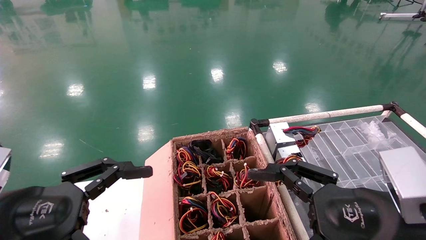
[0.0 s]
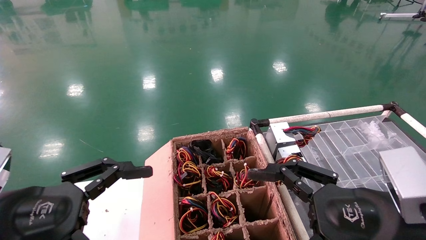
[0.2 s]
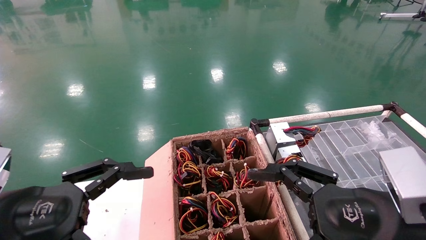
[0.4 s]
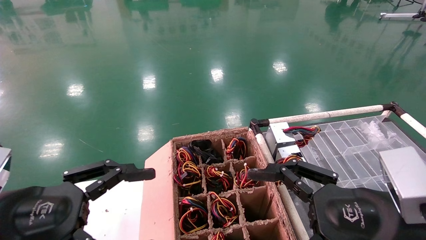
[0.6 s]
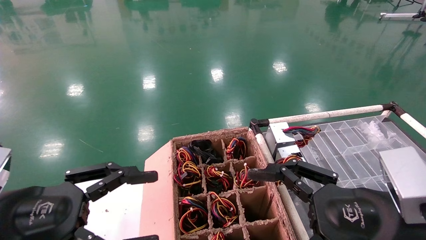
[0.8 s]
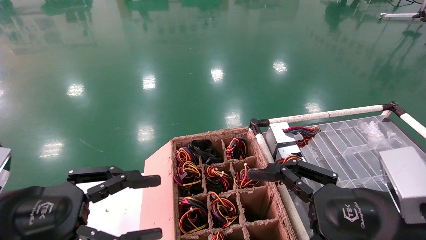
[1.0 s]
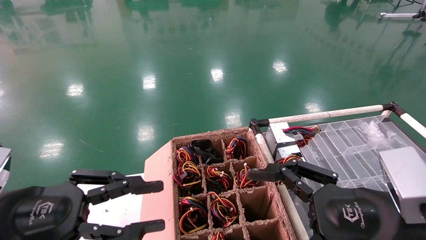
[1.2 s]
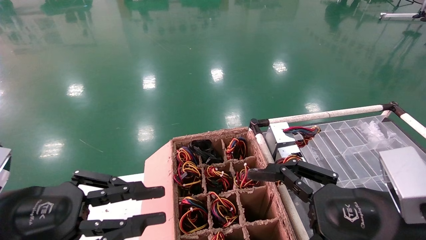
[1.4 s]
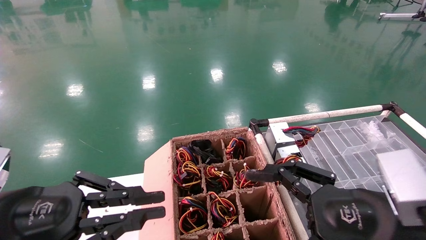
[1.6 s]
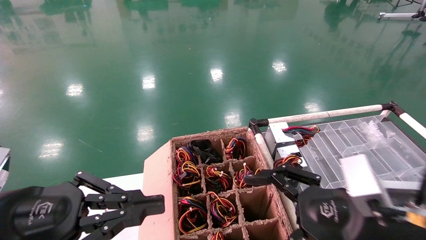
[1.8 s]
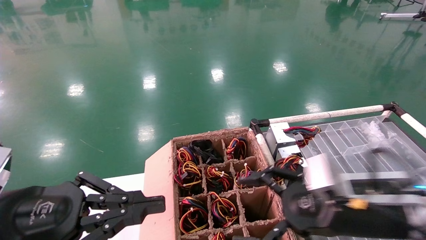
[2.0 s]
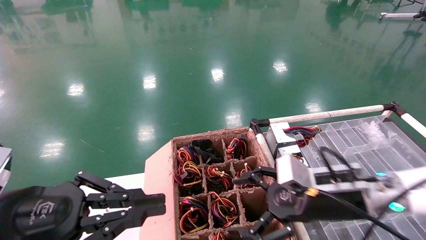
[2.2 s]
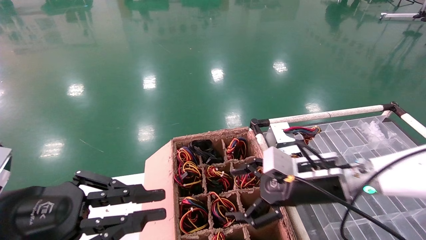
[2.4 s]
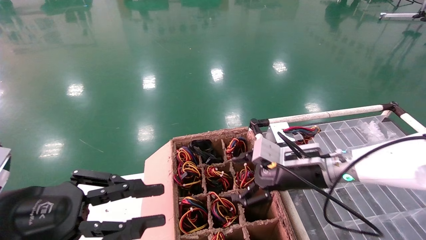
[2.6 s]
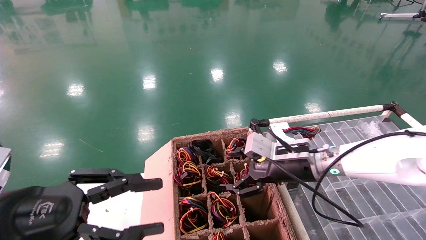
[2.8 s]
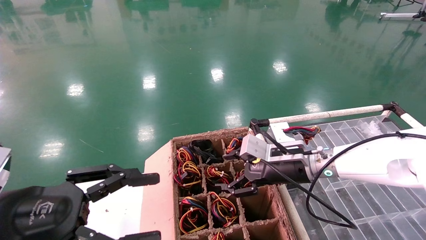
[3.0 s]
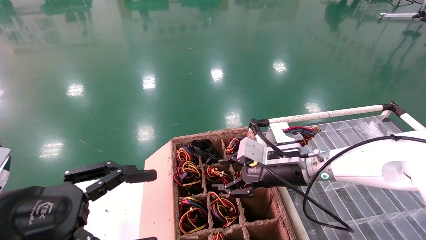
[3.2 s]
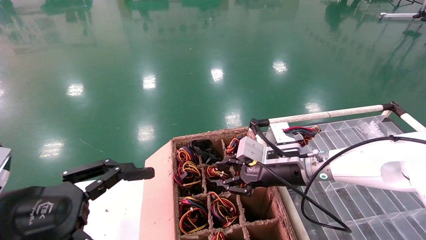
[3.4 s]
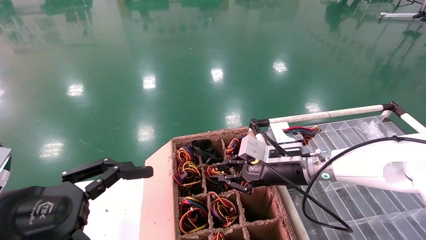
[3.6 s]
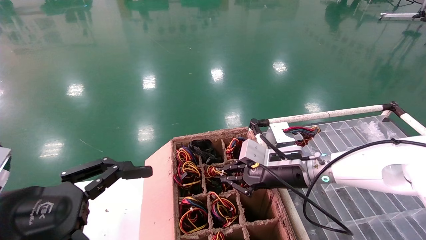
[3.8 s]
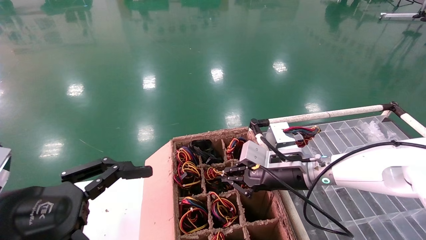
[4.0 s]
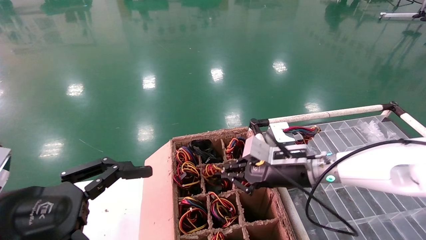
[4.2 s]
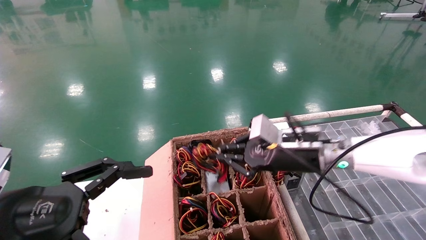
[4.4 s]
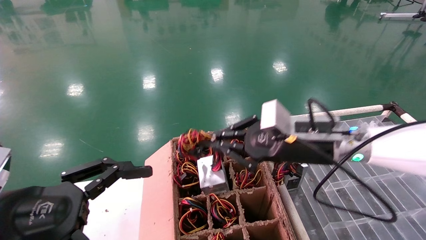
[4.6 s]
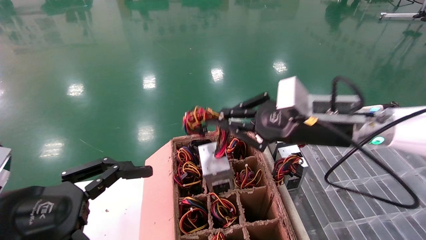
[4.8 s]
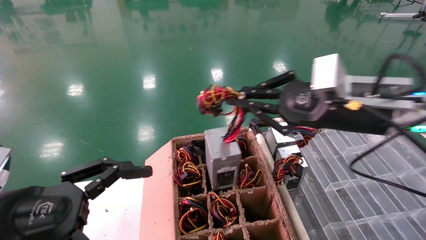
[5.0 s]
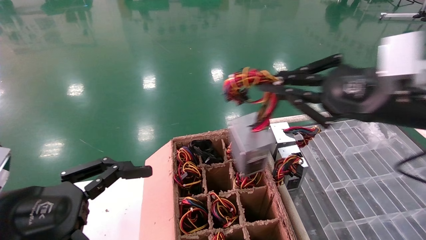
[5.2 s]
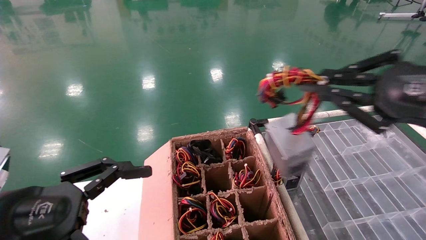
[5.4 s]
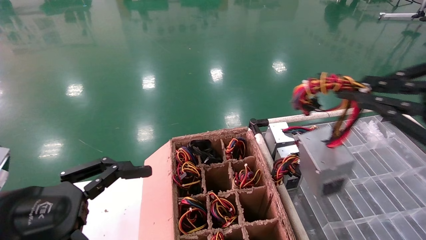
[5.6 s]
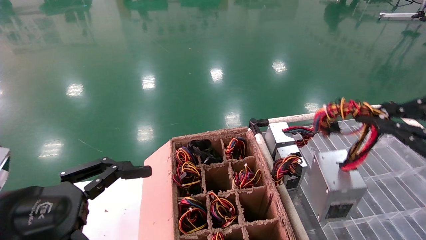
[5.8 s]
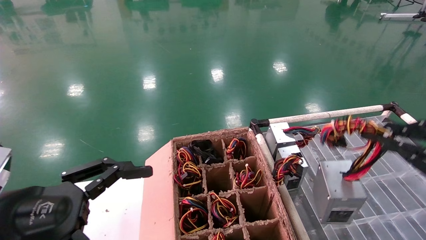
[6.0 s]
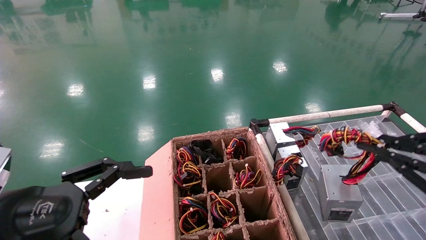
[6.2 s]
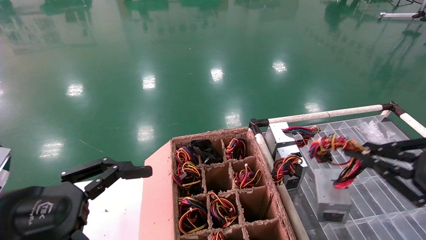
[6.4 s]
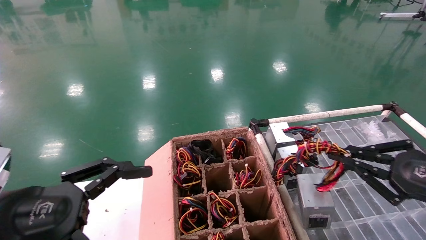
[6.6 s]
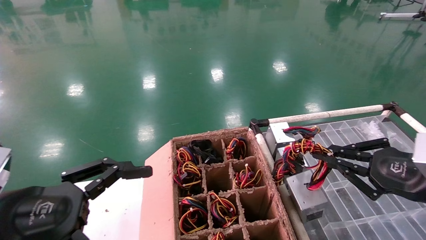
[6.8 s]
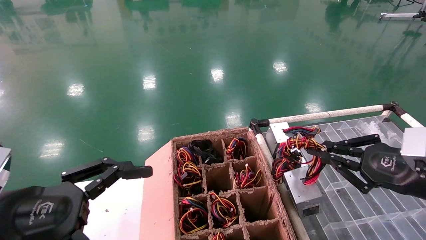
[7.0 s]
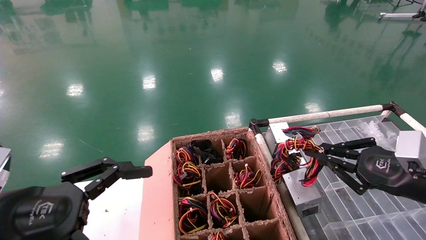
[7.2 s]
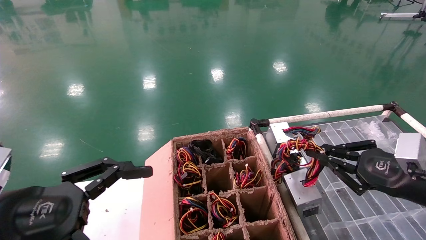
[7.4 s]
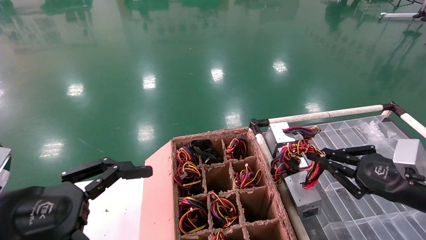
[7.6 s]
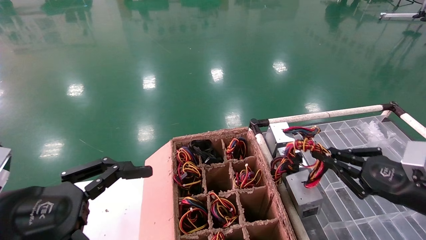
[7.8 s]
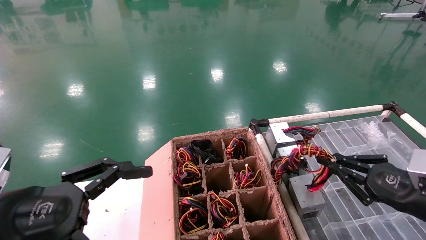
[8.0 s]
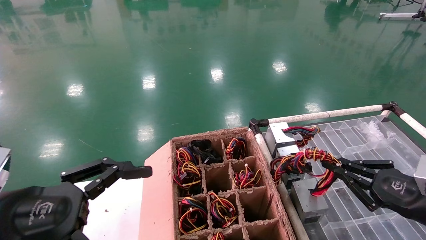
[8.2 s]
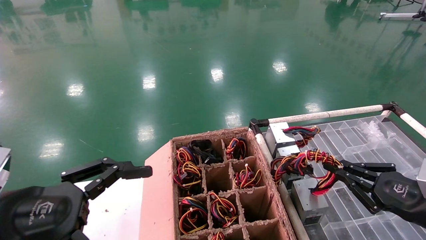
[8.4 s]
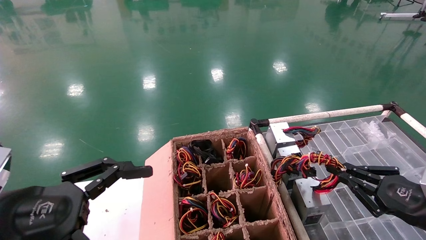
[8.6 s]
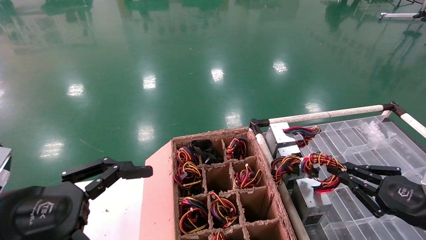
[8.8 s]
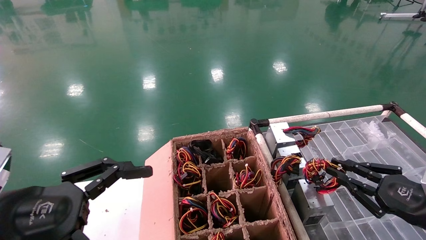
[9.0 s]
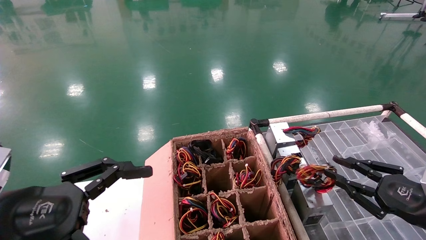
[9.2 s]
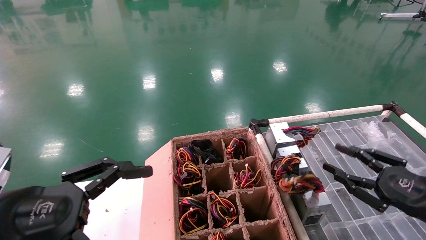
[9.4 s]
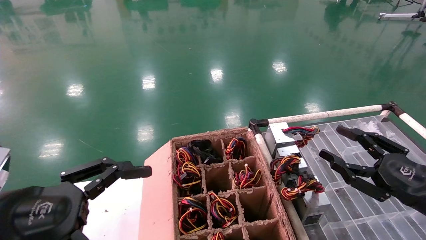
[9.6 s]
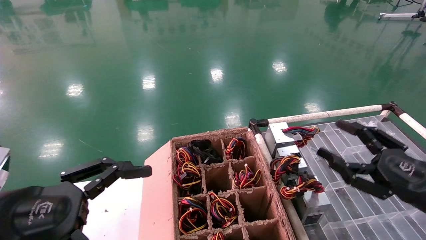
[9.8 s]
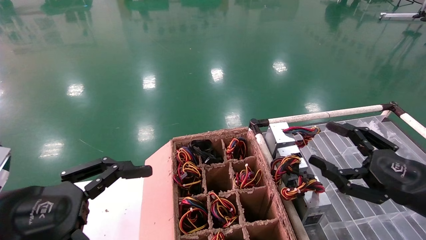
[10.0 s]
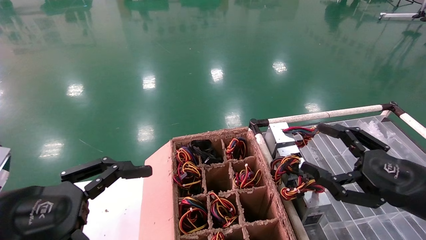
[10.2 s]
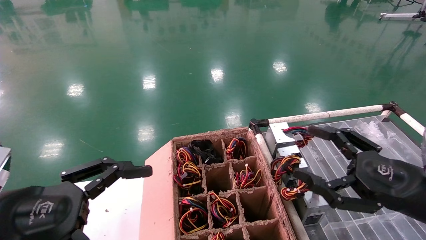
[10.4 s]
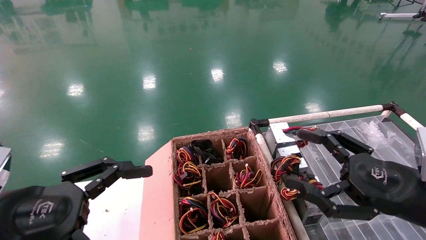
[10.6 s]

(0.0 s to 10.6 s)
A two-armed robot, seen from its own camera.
Step, 2.2 s - 4.2 s: Grab and lift the power supply from the large box.
Step, 4.4 s - 9.0 s: Place the power supply on the operating table.
0.0 s - 1.6 s: The left gripper closes its fingers.
1.6 s - 3.0 s: The right gripper is displaced forward by roughly 20 cm.
3.0 s - 4.6 s: The left gripper opens its fingers. The right gripper heads upward, covering approximately 10 cm, and closes up.
4.6 s - 6.0 s: The right gripper shifts about 30 cm to the right and backward.
6.0 s - 7.6 s: The right gripper heads forward and downward, covering some 15 cm.
7.6 s - 9.0 s: The right gripper heads downward, covering approximately 5 cm.
9.0 s - 10.6 s: The right gripper heads to the left and upward, covering about 10 cm, and opens up.

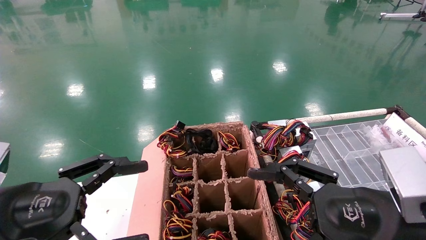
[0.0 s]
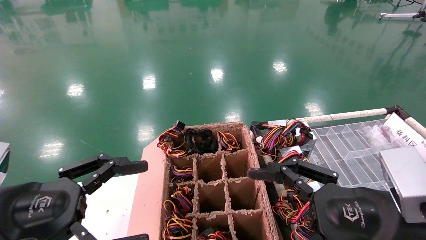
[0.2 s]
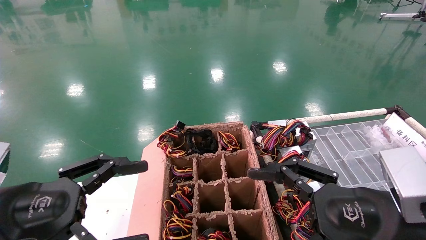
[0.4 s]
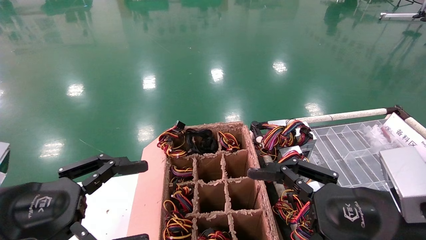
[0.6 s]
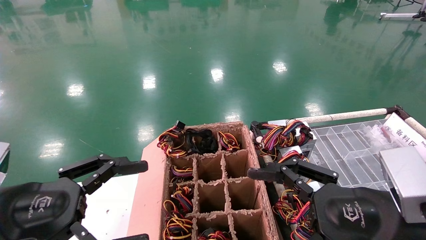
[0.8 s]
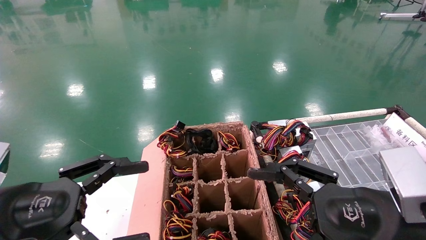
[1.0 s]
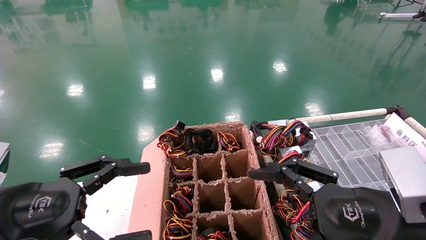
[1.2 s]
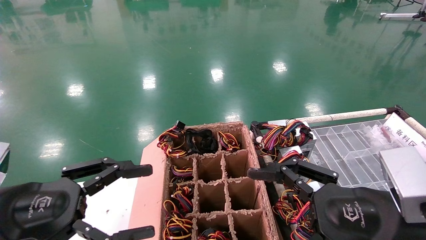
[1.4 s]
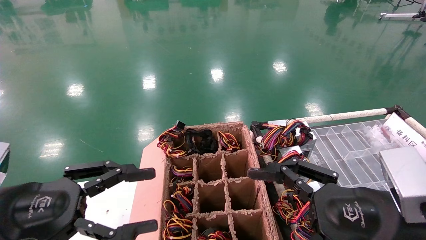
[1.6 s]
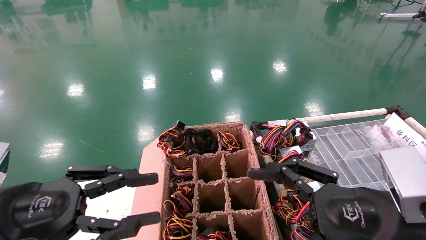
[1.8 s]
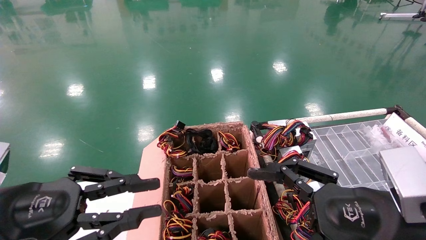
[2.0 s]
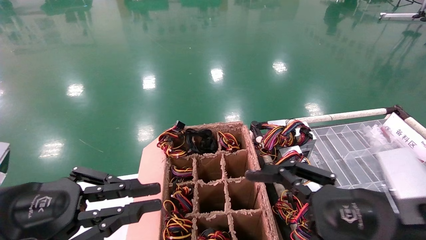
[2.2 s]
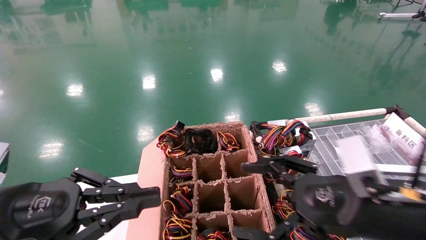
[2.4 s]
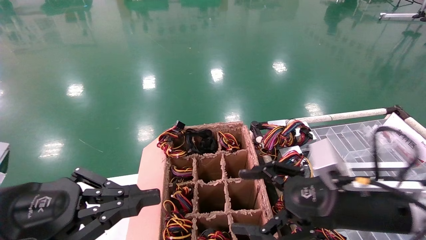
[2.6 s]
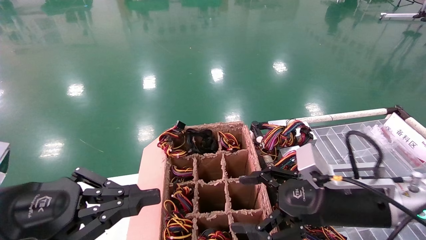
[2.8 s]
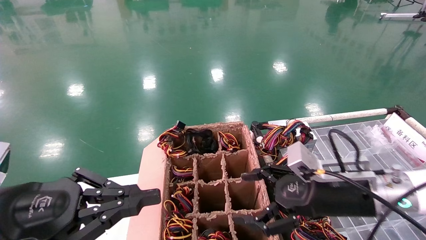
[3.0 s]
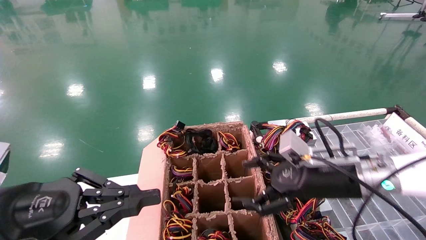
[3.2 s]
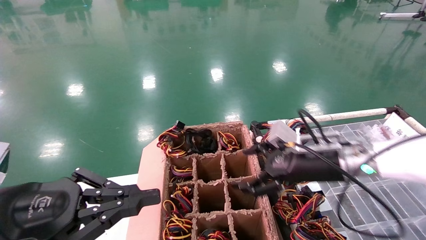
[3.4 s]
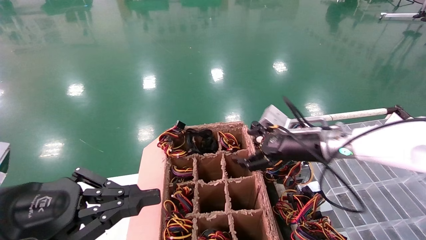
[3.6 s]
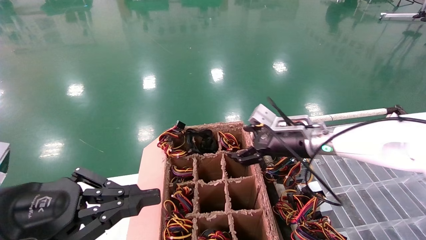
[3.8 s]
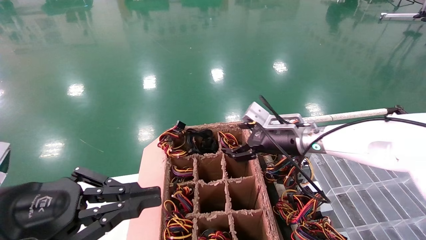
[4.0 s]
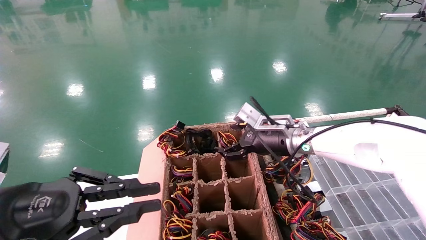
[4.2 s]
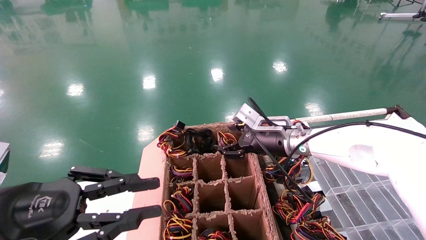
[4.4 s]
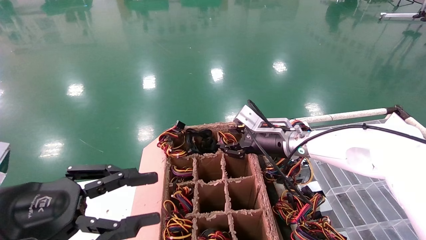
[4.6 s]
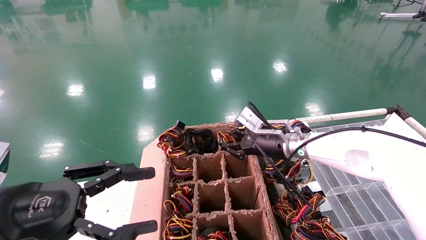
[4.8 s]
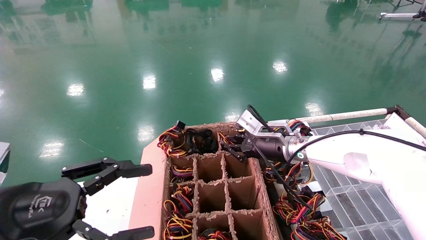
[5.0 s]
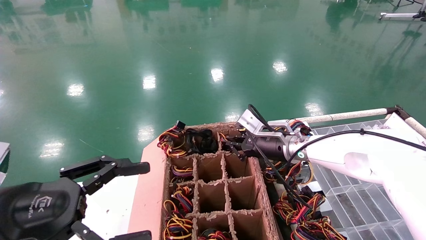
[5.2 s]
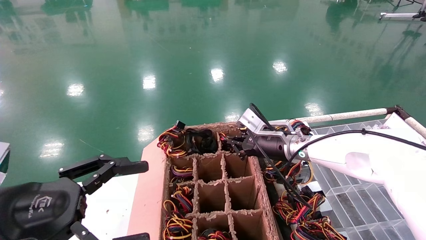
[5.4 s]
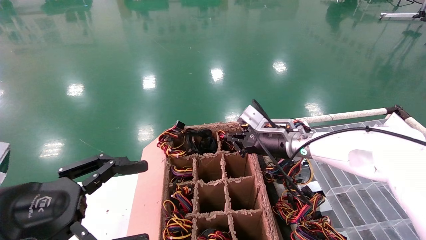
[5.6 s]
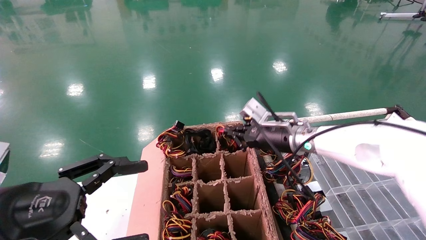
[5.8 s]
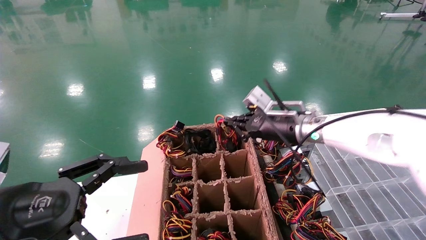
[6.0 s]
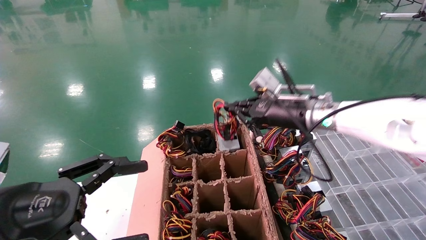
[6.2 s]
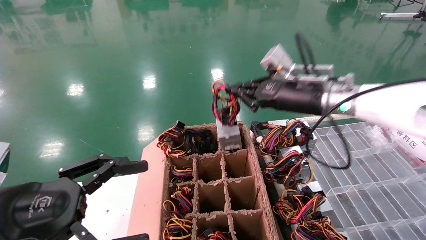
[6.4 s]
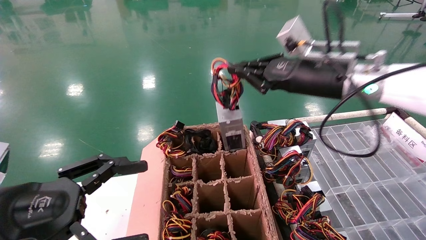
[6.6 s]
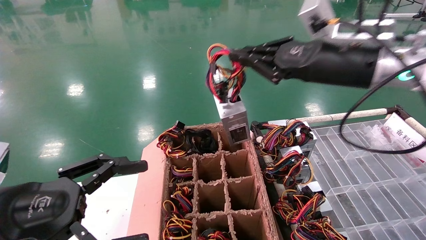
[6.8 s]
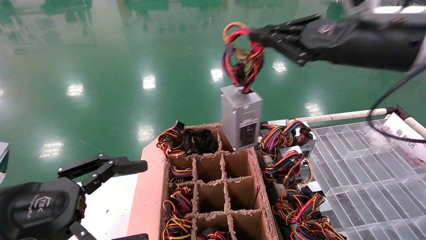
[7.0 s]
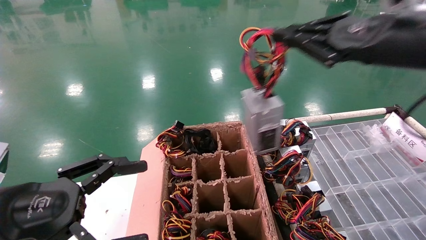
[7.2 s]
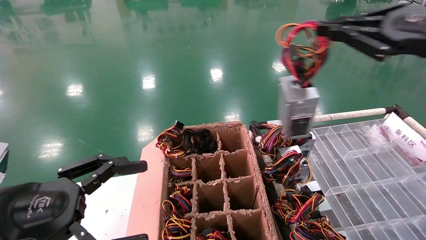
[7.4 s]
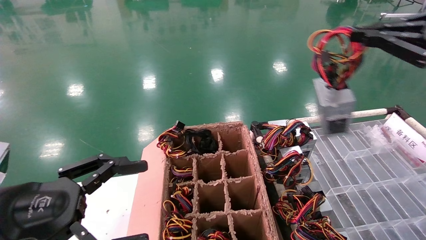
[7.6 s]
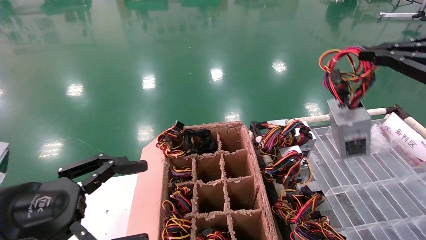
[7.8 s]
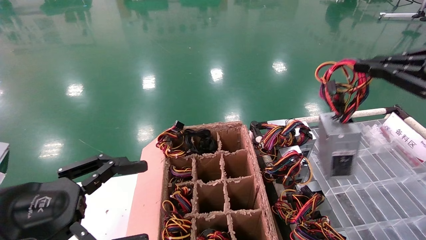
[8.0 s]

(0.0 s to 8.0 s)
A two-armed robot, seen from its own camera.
Step, 2.6 s - 5.6 s: Grab and lift the power supply from the large box.
0.0 s - 1.6 s: Neither gripper changes place.
1.6 s - 3.2 s: The left gripper closes. Meanwhile the right gripper goes about 15 cm forward.
3.2 s - 4.8 s: The left gripper opens its fingers, while the right gripper shifts approximately 15 cm forward and to the left, and closes its fingers.
4.8 s - 6.4 s: The right gripper travels upward and backward by some 15 cm, and closes up. The left gripper opens.
6.4 s - 8.0 s: The right gripper is displaced to the right and backward by roughly 25 cm.
